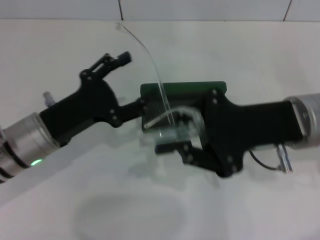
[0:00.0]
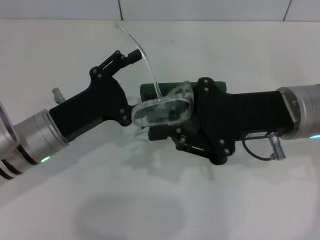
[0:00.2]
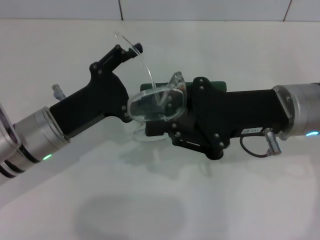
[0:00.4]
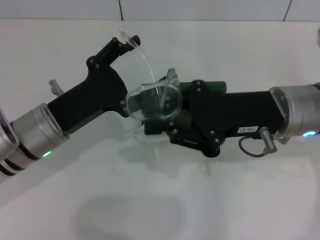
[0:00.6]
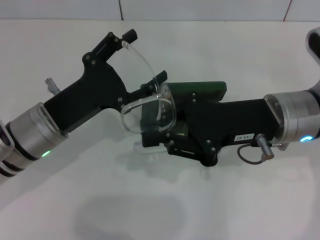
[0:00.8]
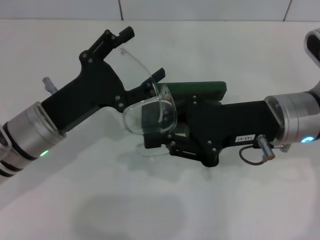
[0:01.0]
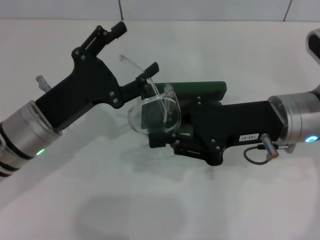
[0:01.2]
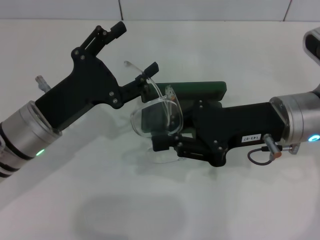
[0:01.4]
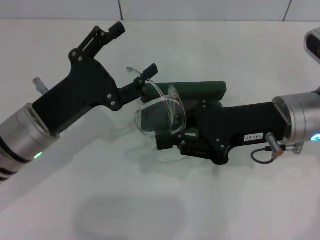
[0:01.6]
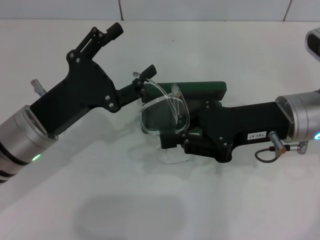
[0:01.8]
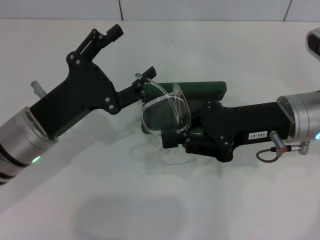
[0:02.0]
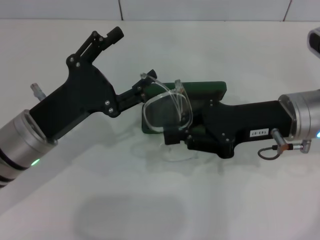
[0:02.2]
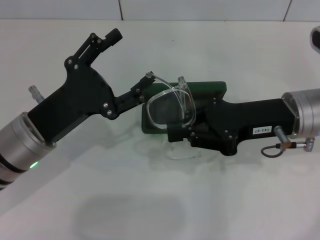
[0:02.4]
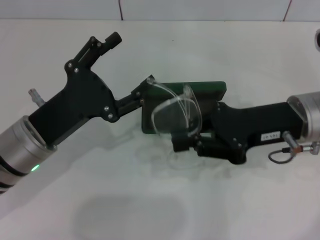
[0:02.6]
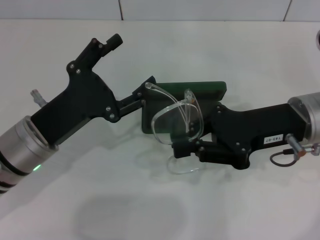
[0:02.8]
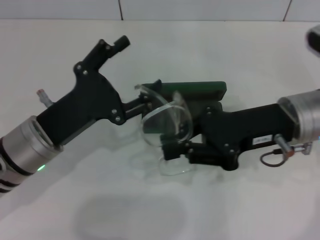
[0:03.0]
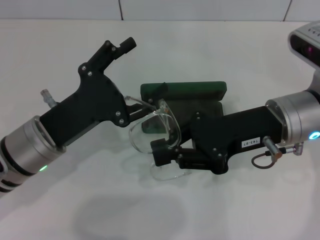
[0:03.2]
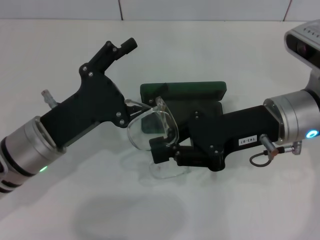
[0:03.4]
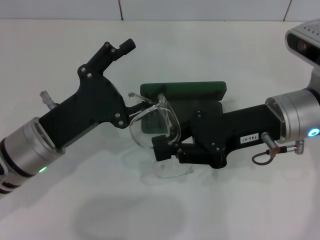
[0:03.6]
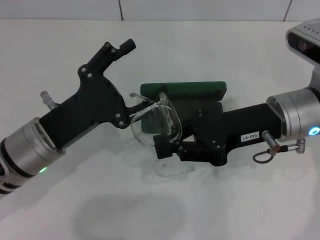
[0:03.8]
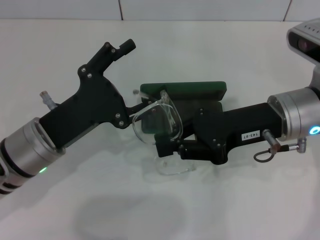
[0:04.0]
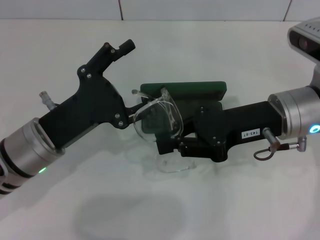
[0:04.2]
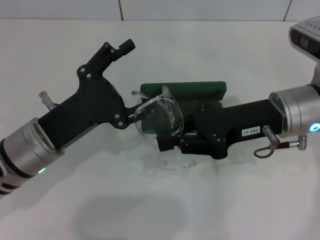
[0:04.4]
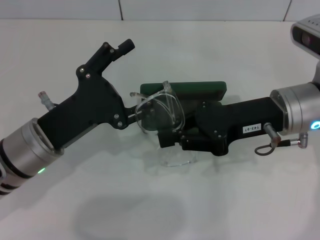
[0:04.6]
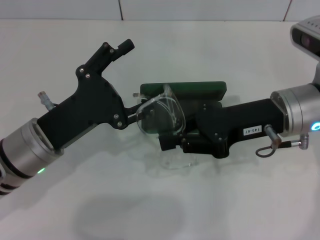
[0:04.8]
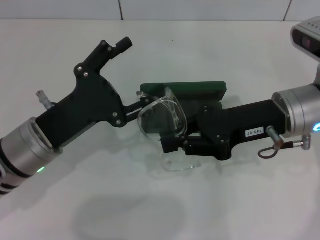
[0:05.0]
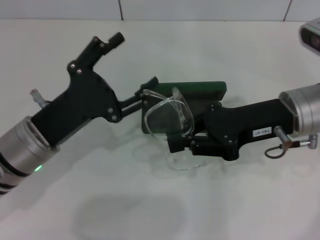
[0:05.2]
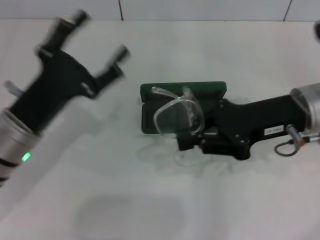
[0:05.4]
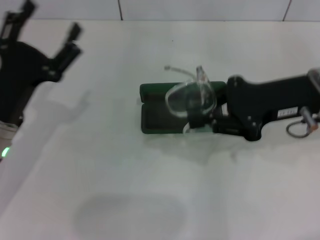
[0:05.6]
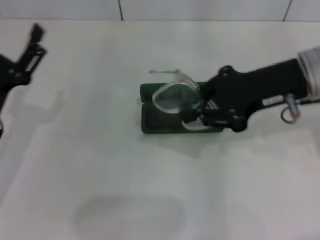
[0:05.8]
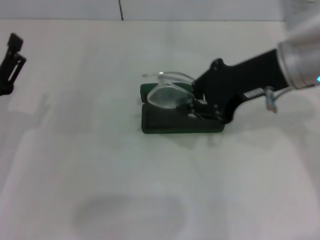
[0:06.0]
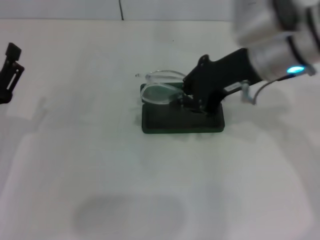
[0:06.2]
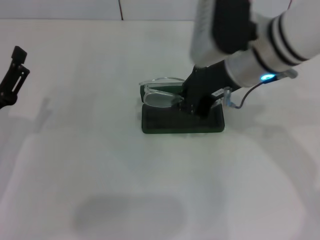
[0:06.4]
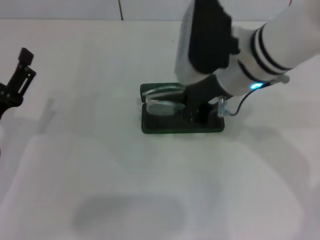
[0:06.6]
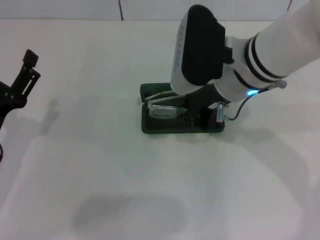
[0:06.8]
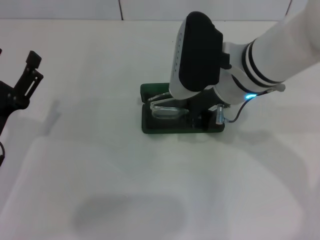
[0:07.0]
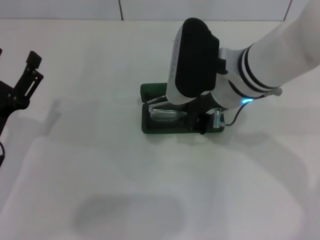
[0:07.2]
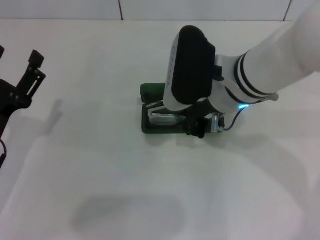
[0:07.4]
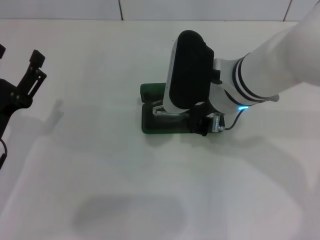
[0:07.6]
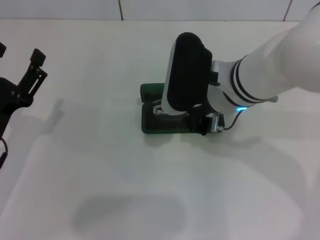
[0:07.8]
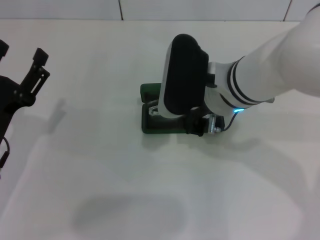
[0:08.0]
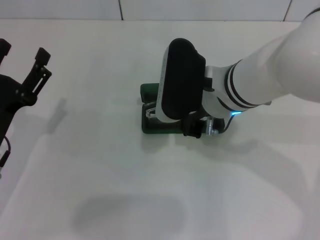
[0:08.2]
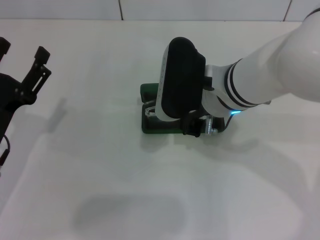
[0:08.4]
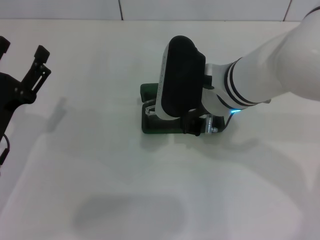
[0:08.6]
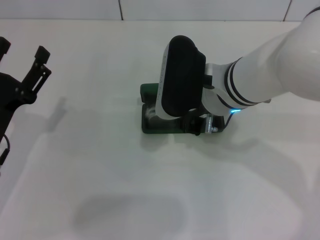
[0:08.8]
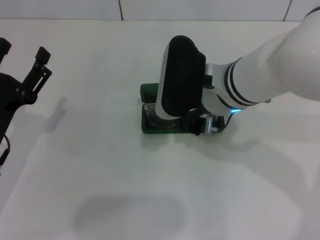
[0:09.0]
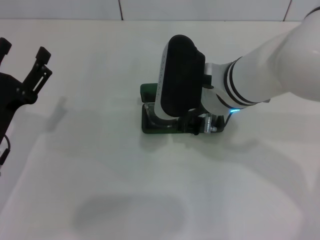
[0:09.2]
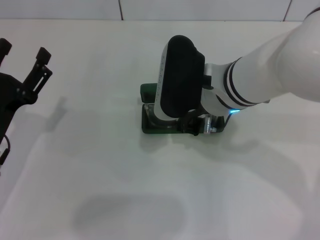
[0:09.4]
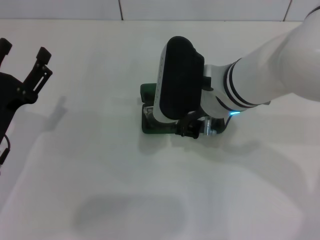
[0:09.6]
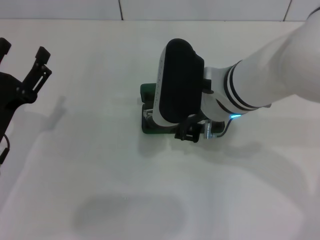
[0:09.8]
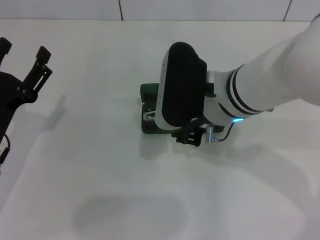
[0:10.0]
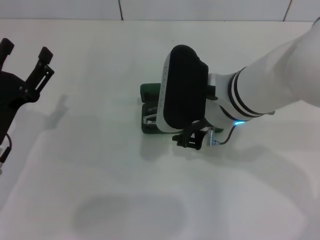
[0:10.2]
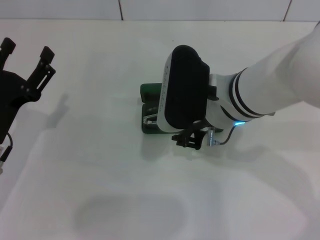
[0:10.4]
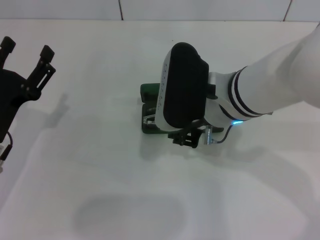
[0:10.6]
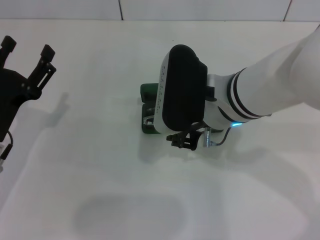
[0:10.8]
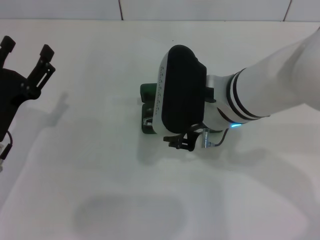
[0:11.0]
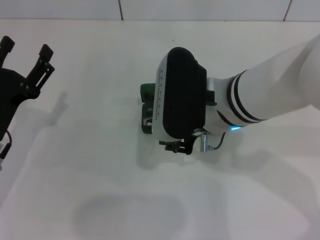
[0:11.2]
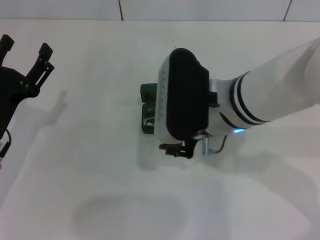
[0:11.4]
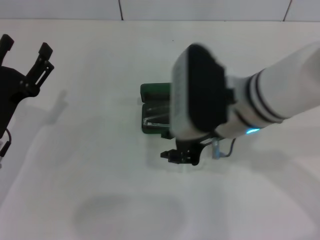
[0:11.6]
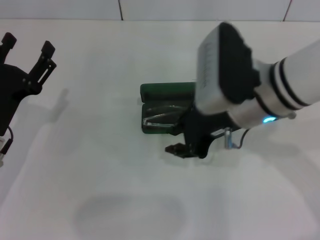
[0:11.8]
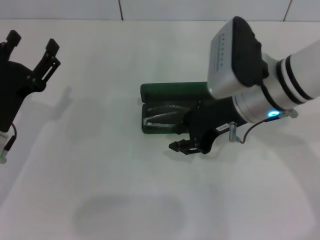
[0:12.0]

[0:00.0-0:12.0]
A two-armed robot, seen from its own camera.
Step, 0:00.0 to 0:04.4: Fold the frame with your left hand.
0:01.6 to 0:04.4: There are only small adjustments of the grippers.
0:04.4 to 0:06.0: The left gripper moves to the left, some 10 cm, while the right gripper goes approximately 10 cm upward.
0:06.0 to 0:07.6: The right gripper goes approximately 10 cm to the left and downward.
0:07.6 to 0:09.0: Both grippers stay put.
0:09.0 to 0:10.4: The grippers move only a little.
0:10.4 to 0:12.0: The right gripper travels to the right by about 5 cm.

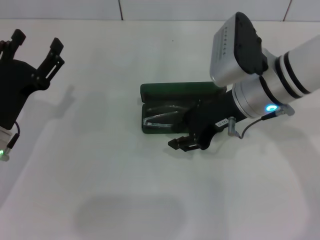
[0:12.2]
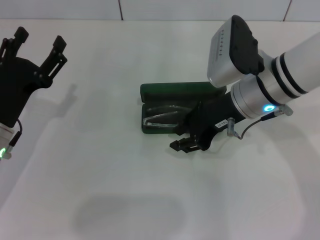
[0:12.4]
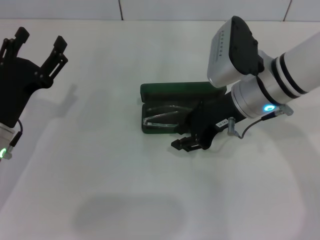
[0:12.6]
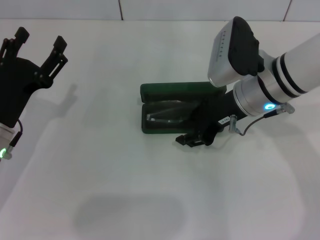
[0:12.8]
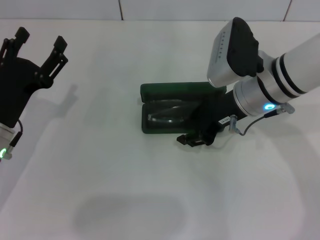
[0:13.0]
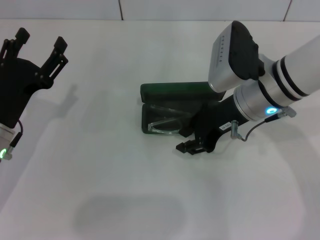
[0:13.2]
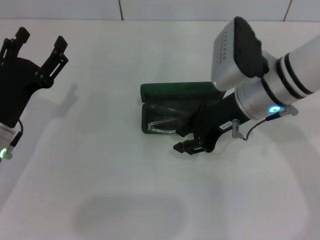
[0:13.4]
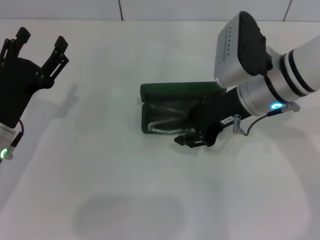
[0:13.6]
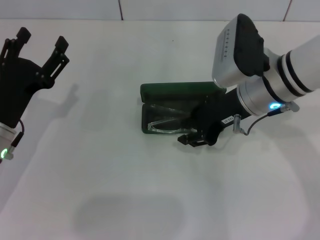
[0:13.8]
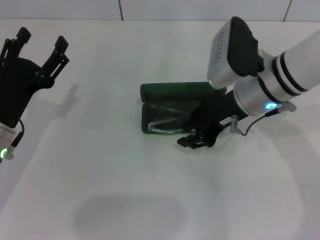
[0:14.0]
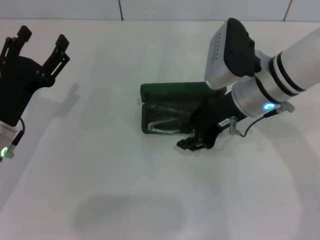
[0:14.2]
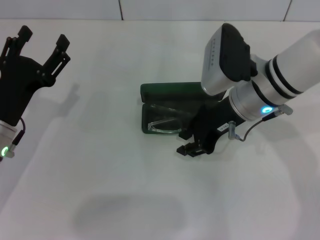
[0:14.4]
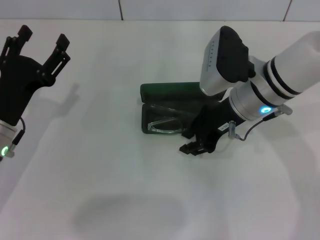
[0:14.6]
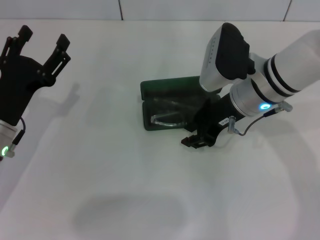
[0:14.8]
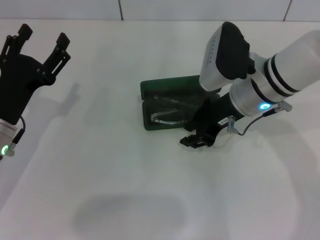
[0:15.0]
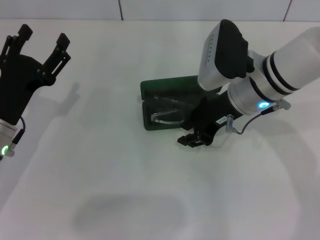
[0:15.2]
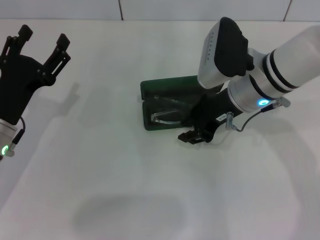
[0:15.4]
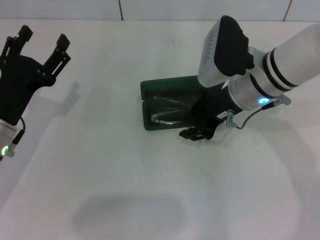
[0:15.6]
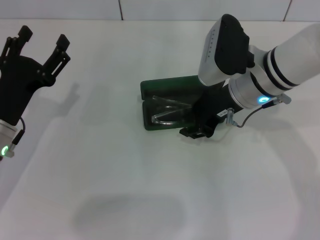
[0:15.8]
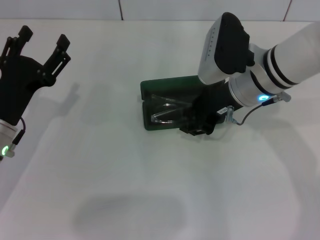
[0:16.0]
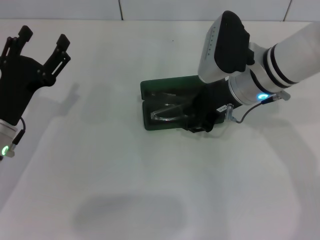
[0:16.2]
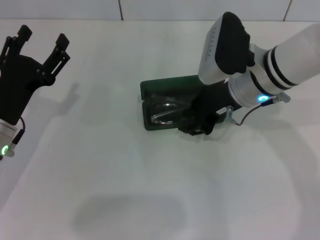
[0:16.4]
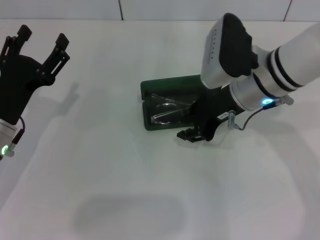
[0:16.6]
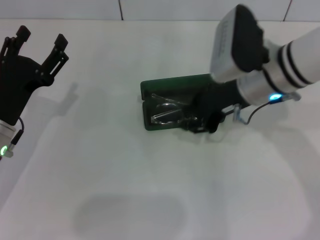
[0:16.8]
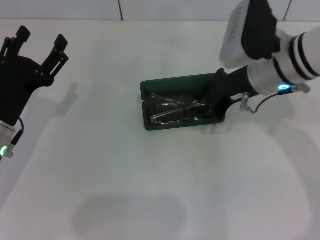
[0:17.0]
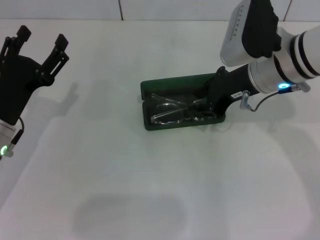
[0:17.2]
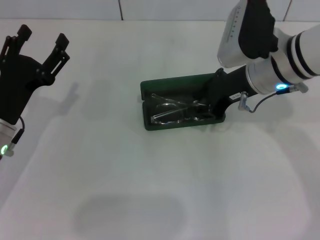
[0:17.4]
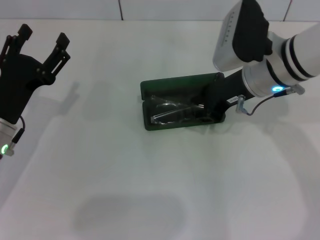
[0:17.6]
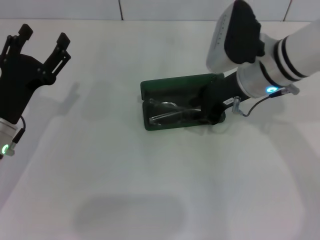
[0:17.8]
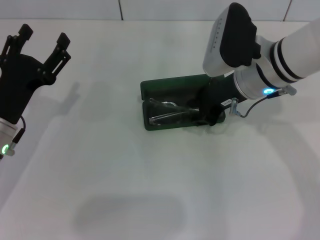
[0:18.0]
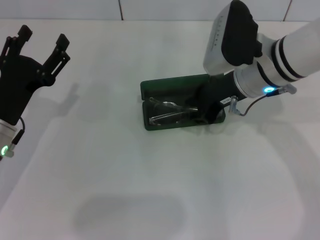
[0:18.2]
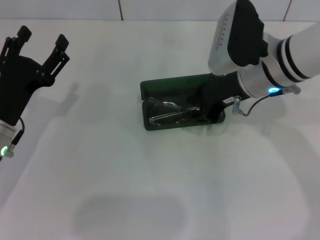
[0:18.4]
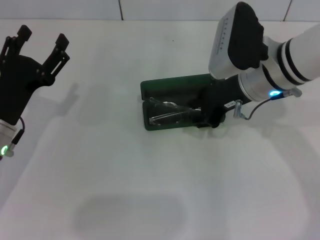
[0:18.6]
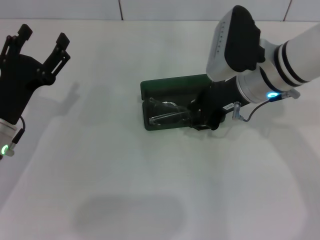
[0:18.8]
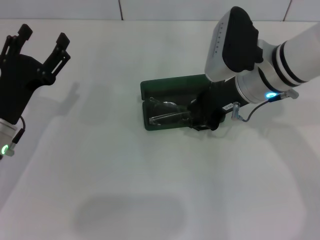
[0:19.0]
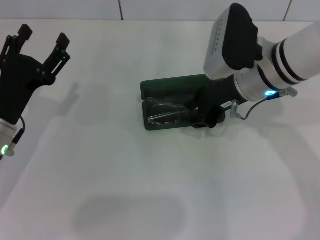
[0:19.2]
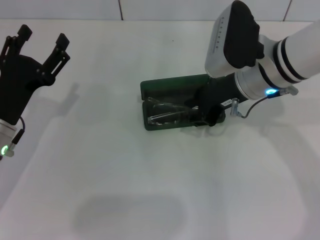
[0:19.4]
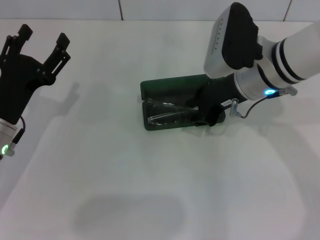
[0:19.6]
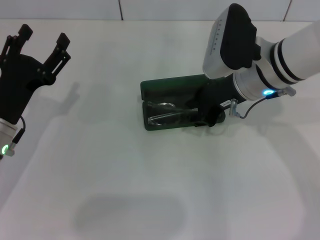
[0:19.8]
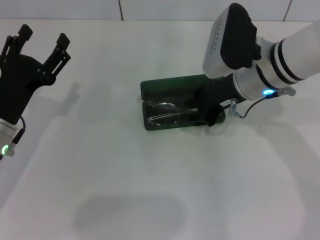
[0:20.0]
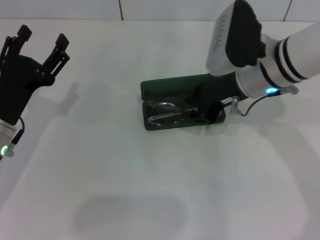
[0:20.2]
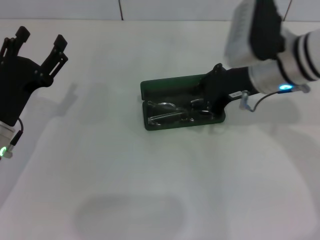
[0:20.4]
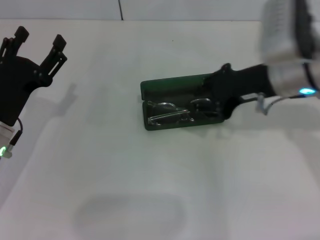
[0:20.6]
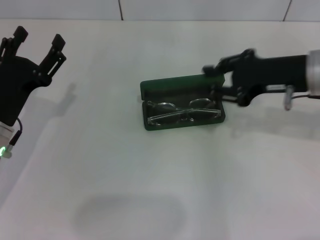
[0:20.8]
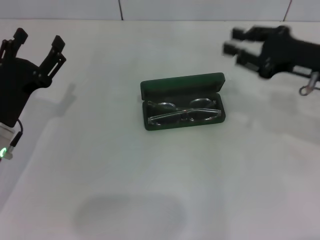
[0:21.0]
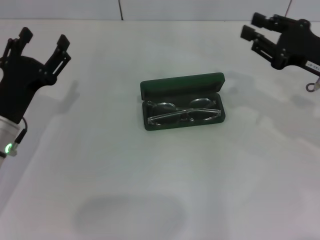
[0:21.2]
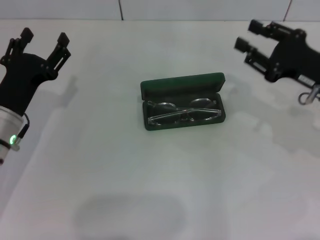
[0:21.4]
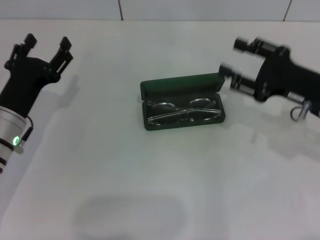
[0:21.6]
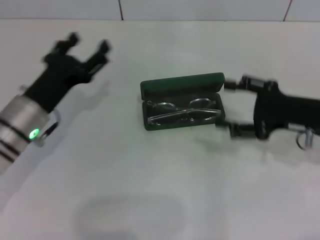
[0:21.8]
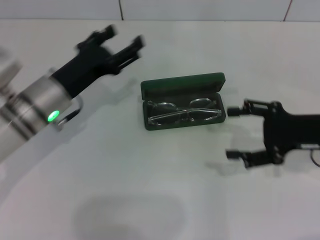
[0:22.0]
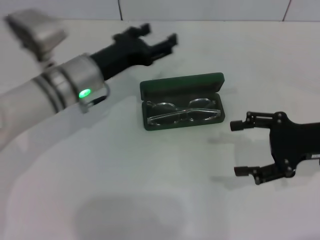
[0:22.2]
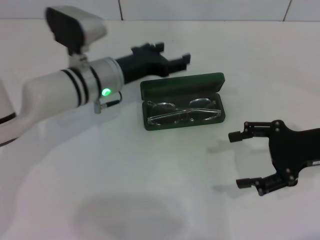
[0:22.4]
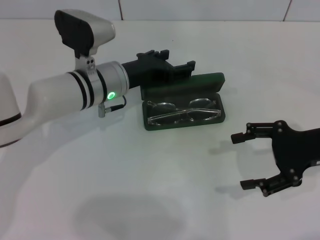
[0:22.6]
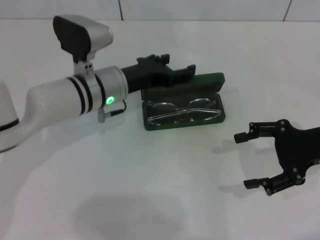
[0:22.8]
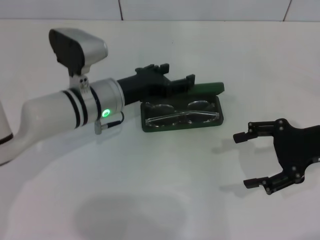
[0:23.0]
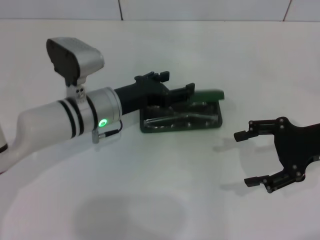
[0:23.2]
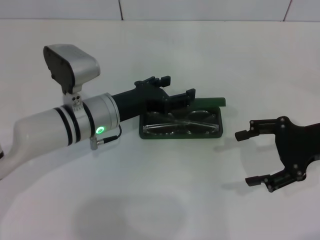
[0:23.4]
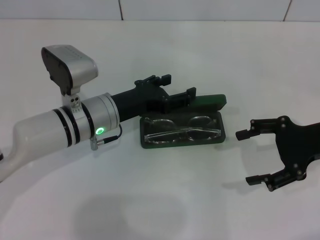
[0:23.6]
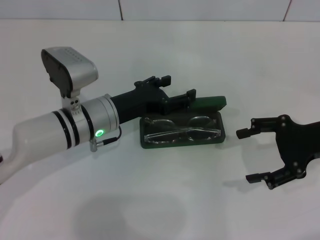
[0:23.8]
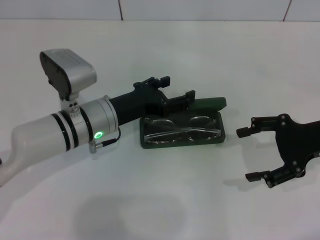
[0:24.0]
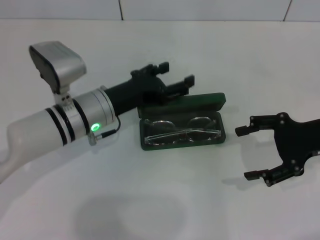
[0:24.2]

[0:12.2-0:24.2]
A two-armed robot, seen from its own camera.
Step, 0:12.2 to 0:19.4: Put the glasses into the case with your right hand.
0:12.2 to 0:18.2: The grippers move only a little.
0:18.2 to 0:19.8: Both grippers stay about where they are.
0:19.8 to 0:21.2: The right gripper is displaced to the right by roughly 15 cm.
0:21.2 to 0:22.6: The left gripper shifts some 15 cm to the right and forward. Meanwhile the right gripper opens its fingers.
0:22.6 to 0:24.2: The left gripper moves about 5 cm.
